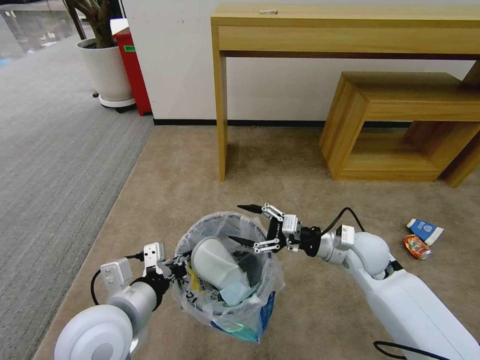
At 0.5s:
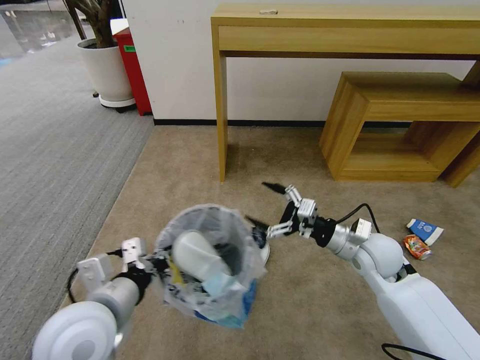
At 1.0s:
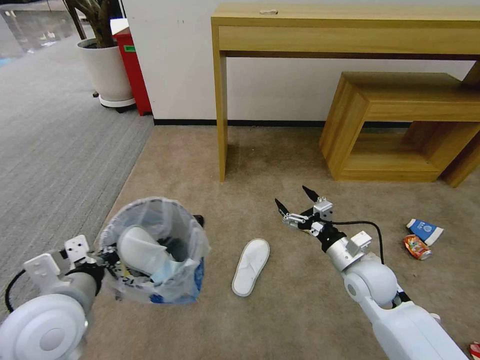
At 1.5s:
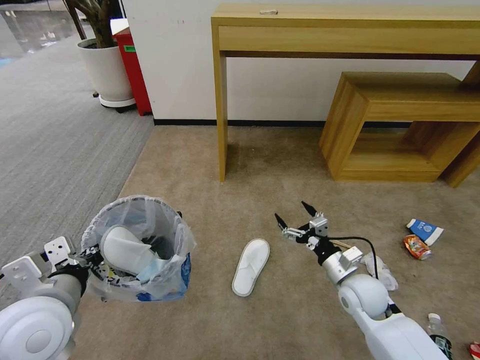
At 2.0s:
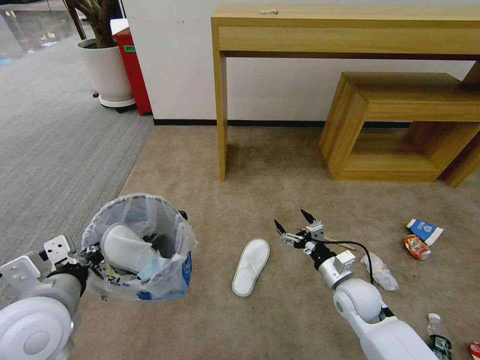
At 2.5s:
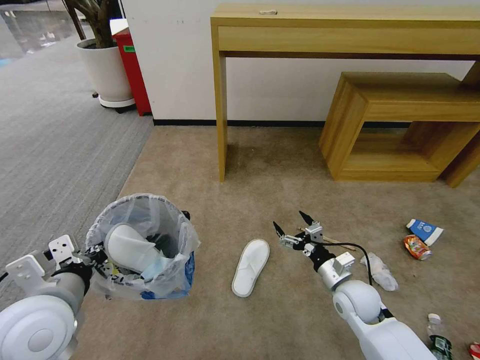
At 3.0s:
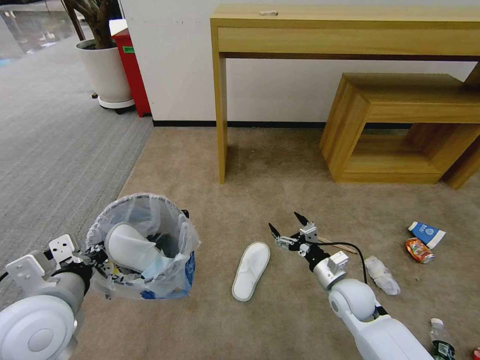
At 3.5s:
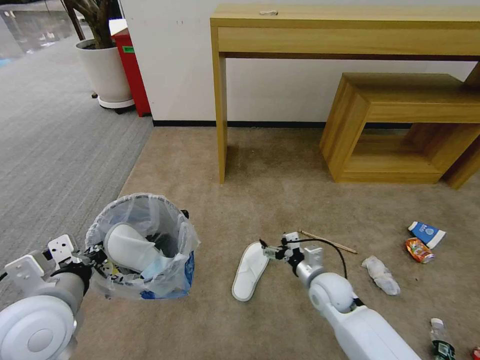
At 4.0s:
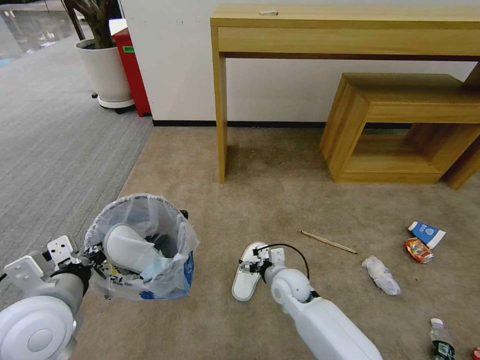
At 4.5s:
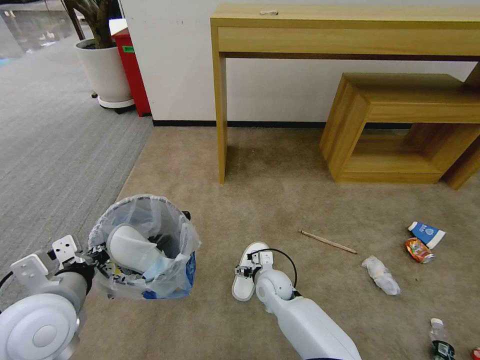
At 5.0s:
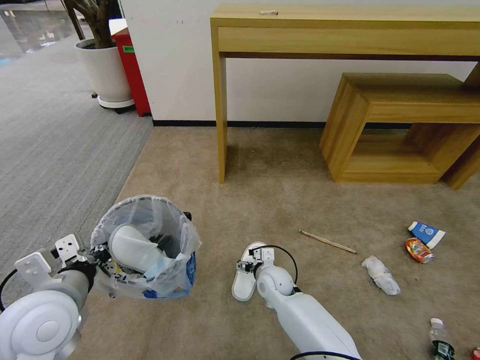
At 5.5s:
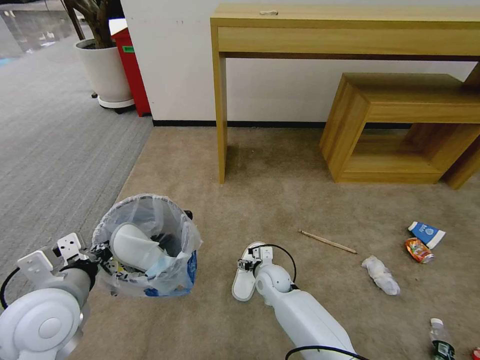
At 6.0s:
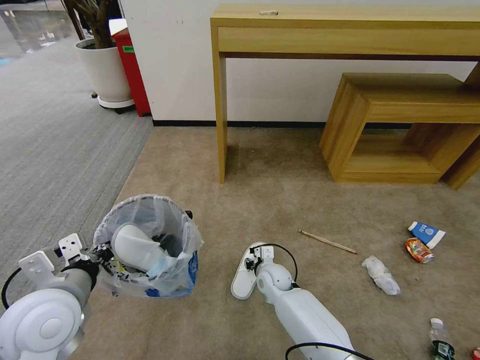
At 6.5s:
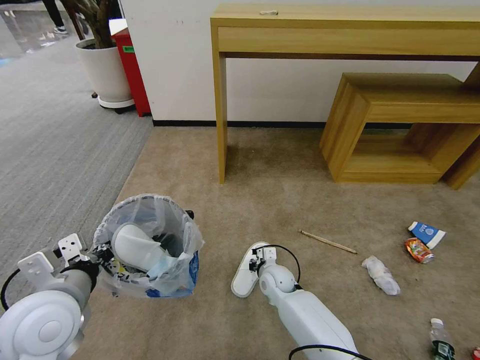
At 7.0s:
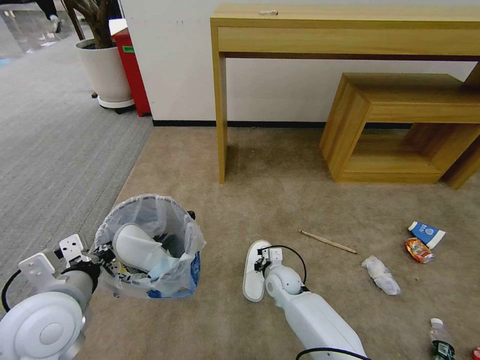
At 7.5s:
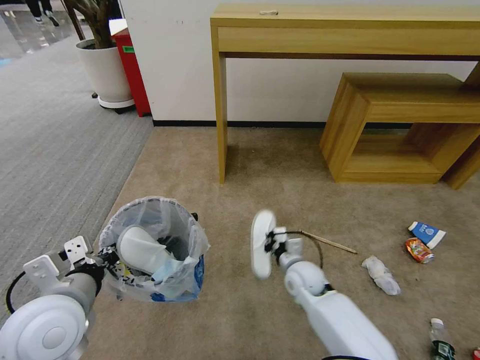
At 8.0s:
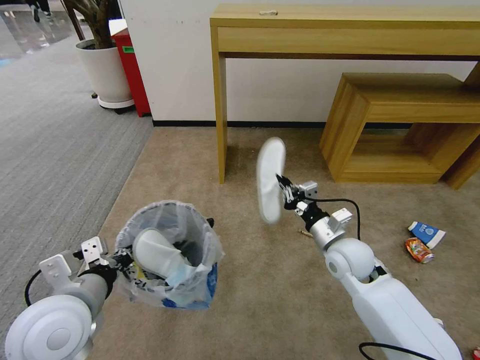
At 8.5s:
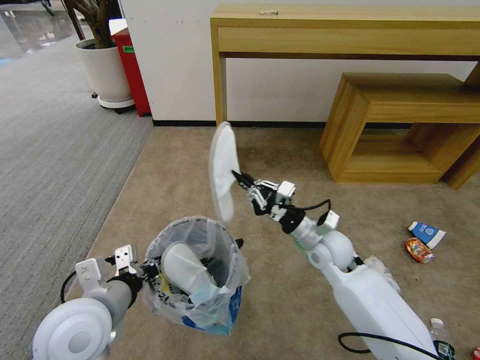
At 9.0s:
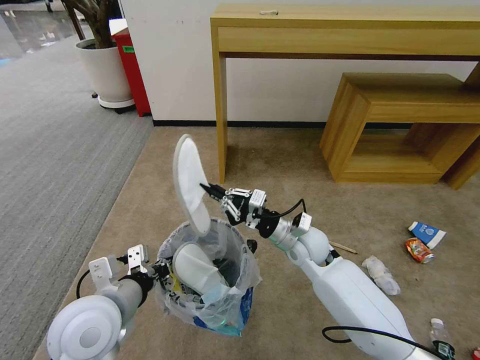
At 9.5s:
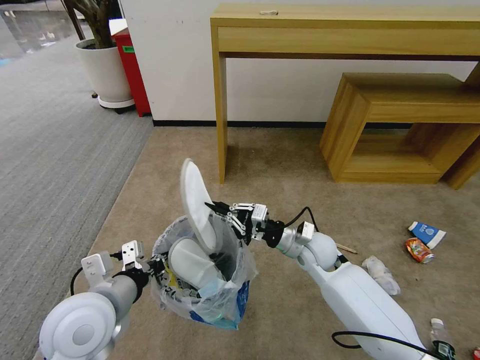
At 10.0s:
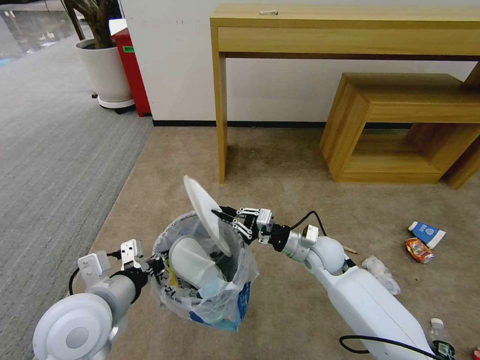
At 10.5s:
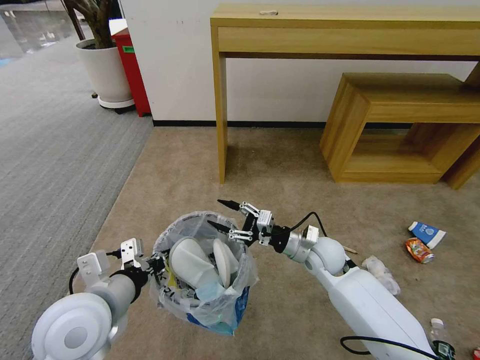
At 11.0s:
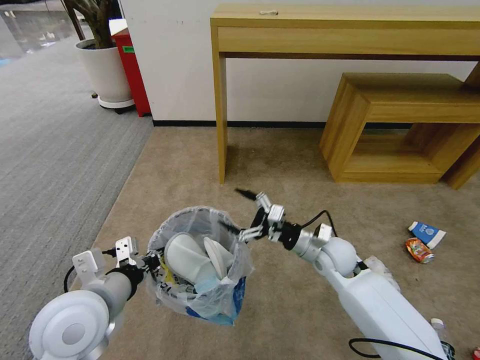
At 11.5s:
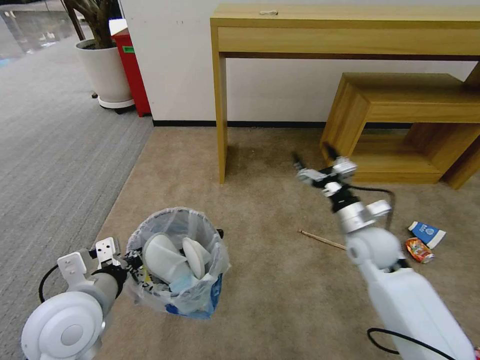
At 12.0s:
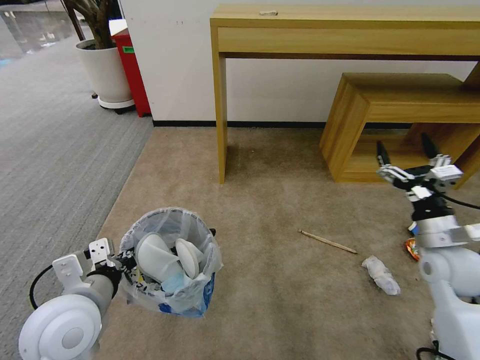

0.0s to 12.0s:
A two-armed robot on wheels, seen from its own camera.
Task of the whole recording: Pick up the trash bin and place the garbage on the floor into it.
0.0s to 2.0s: The left gripper shifts some 10 cm to the left. Meanwhile the right gripper travels downward and backward by some 15 cm.
2.0s to 4.0s: The right gripper is displaced to the left by some 15 cm.
4.0s to 6.0s: The right gripper is displaced downward by some 5 cm, and closes up.
6.0s to 8.0s: The right gripper goes approximately 25 cm upward and to the right, and closes its fingers.
10.0s to 12.0s: The right gripper is displaced to the right and upward by about 25 cm, and opens its fingers.

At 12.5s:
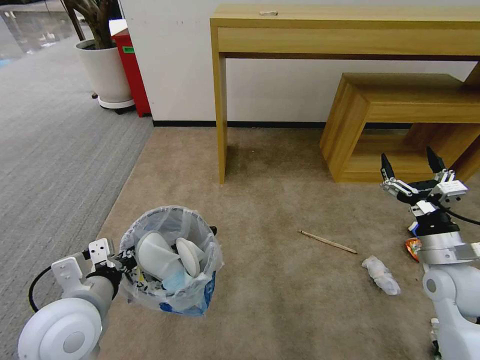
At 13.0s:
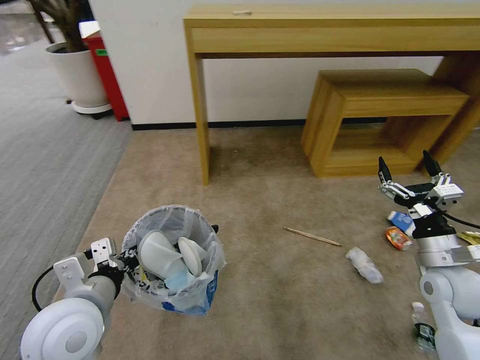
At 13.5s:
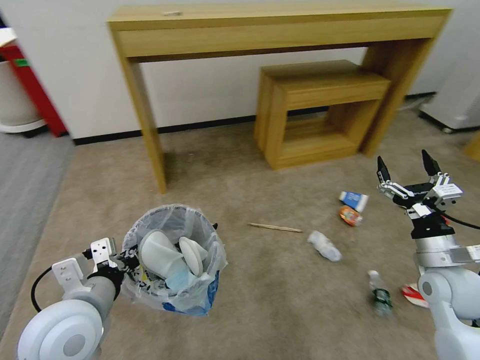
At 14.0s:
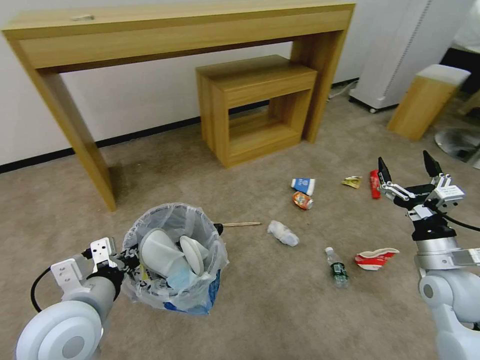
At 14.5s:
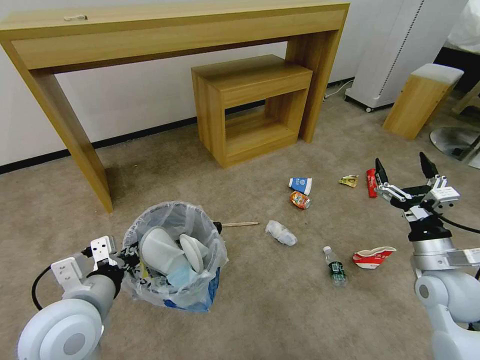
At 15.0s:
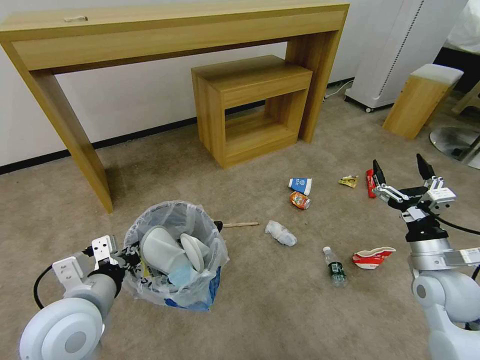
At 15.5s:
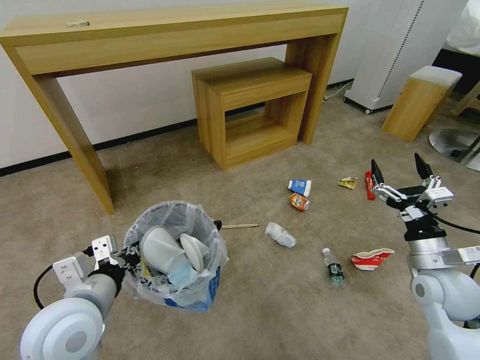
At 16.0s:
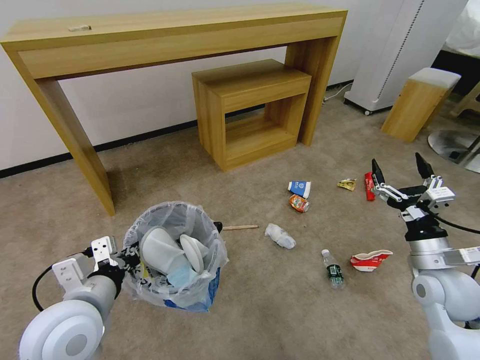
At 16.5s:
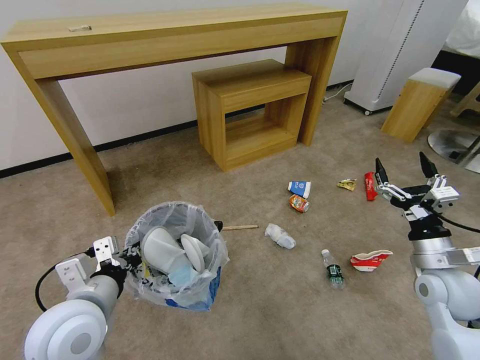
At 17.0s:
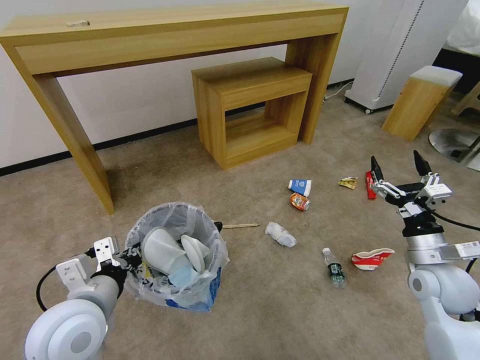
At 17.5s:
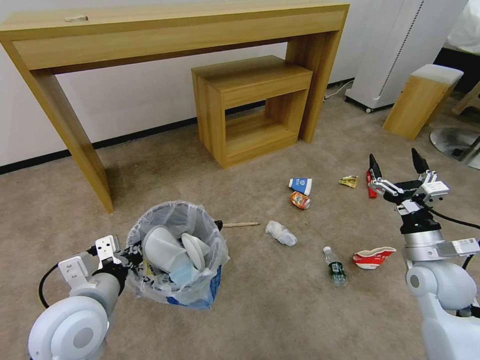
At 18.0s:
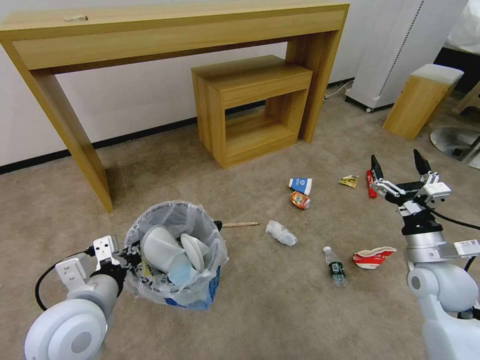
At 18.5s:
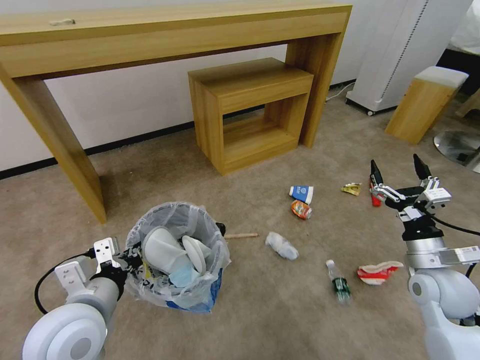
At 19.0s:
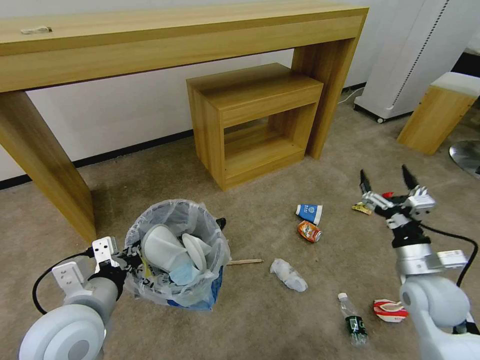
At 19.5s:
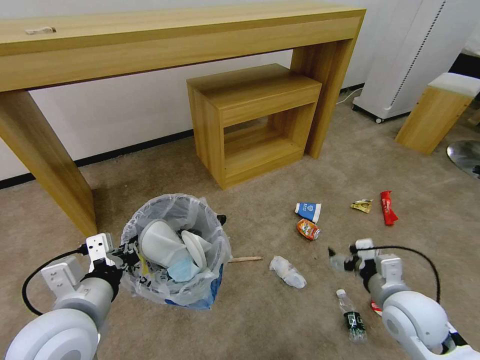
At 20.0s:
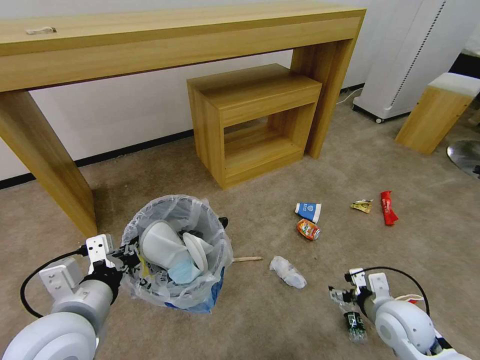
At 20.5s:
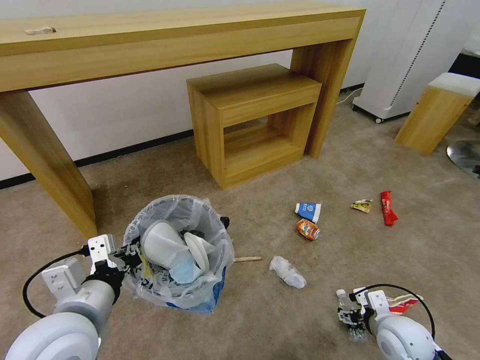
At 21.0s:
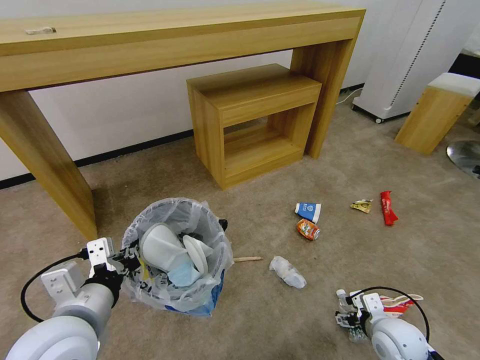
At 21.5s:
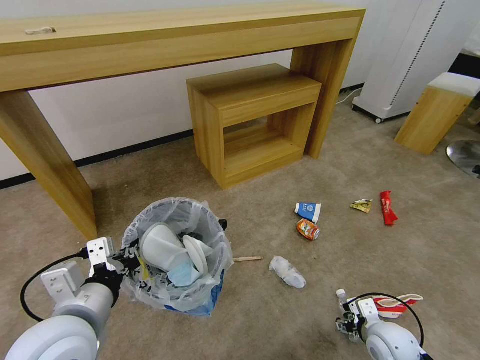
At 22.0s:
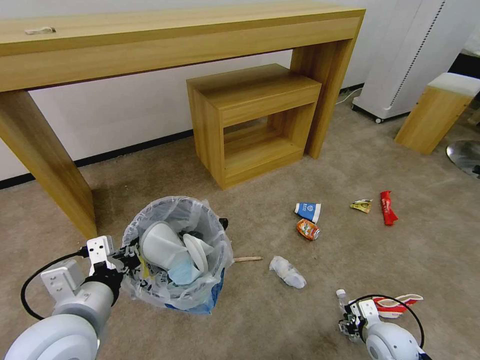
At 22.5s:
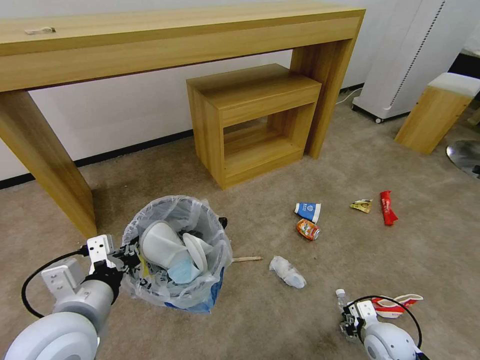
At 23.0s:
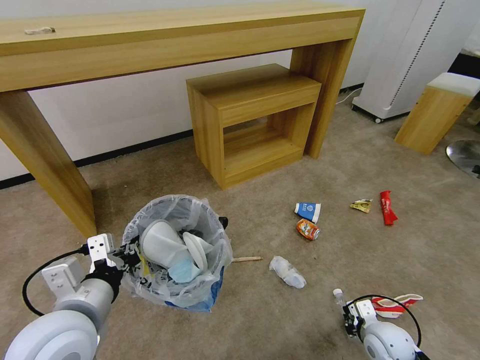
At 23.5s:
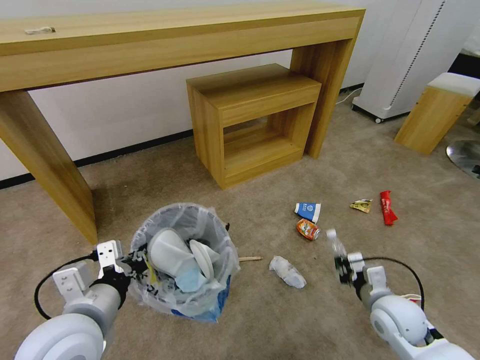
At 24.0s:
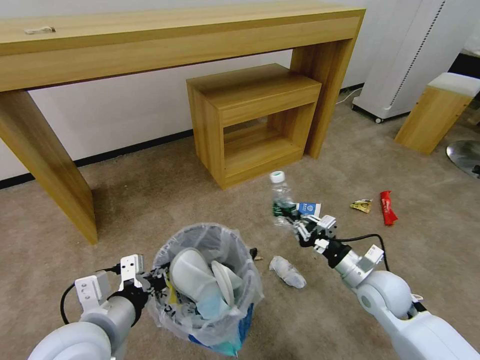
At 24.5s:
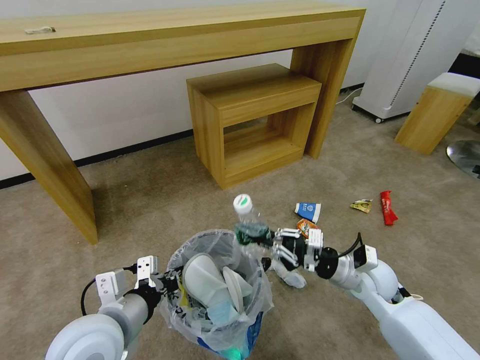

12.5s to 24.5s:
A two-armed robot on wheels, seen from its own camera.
Task of the whole recording: Pick up the trash bin and place the garbage on the floor into it.
14.5s to 16.5s: The two grippers keep their place.
16.5s to 18.5s: The grippers stay close to where they were, moving slightly.
18.5s to 20.5s: The right gripper is displaced downward and backward by some 15 cm.
20.5s to 22.5s: The right gripper goes about 5 cm downward, and closes.
22.5s to 24.5s: The right gripper travels upward, forward and to the left by roughly 20 cm, and closes its fingers.

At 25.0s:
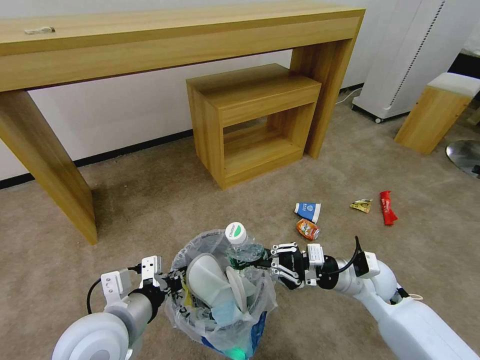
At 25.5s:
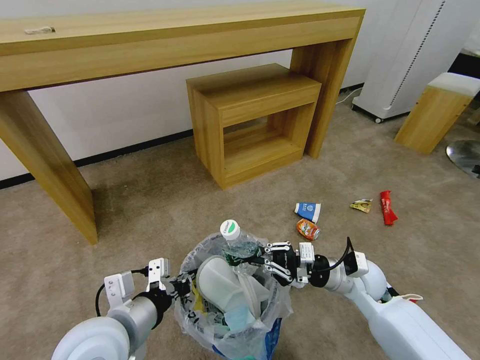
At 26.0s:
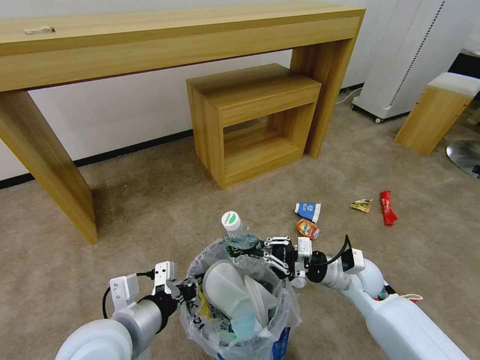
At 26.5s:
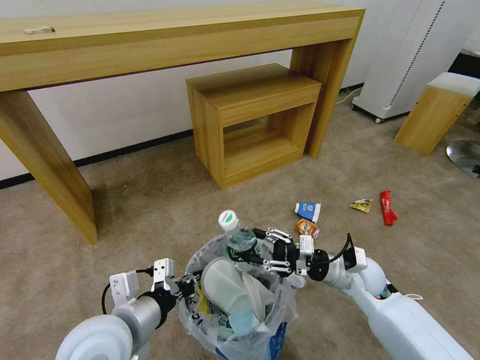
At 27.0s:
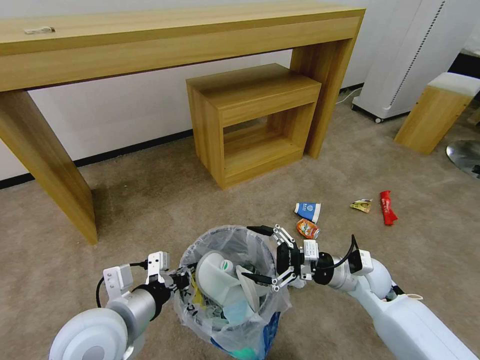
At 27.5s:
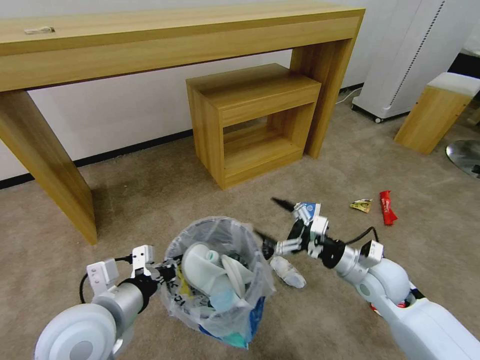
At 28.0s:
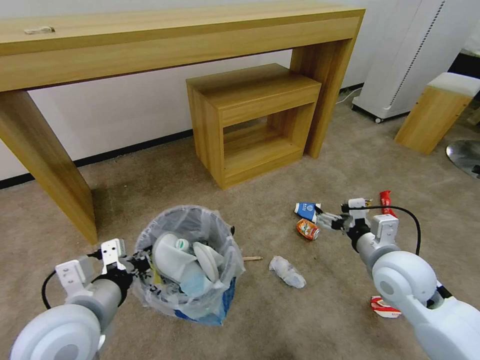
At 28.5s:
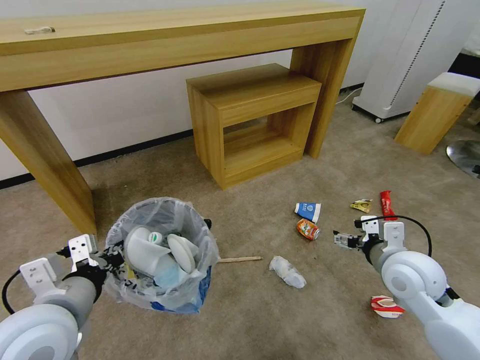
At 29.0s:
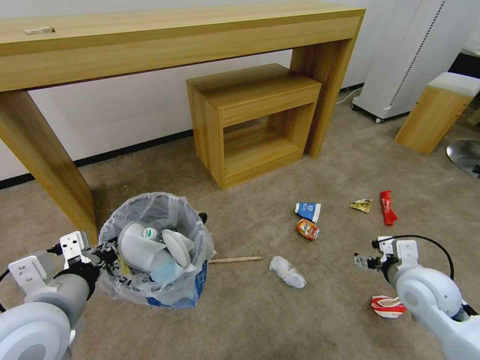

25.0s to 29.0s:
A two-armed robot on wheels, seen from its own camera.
Task of the whole recording: Pick up the trash bin and place the garbage on the floor into it.
25.0s to 27.0s: The right gripper opens.
27.0s to 29.0s: The right gripper heads to the right, covering about 10 cm. Meanwhile the left gripper goes roughly 5 cm to the left.
